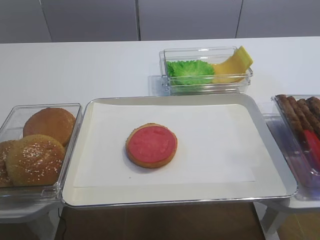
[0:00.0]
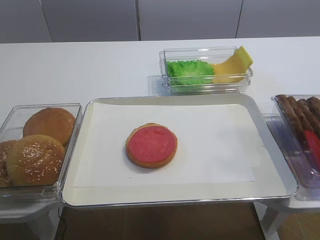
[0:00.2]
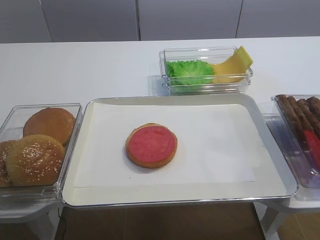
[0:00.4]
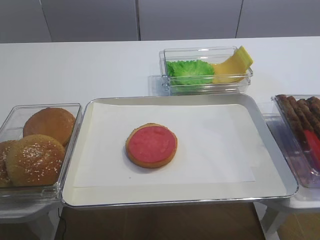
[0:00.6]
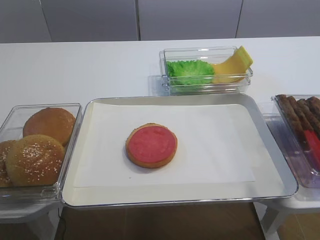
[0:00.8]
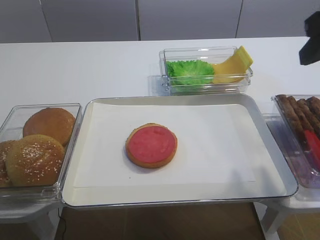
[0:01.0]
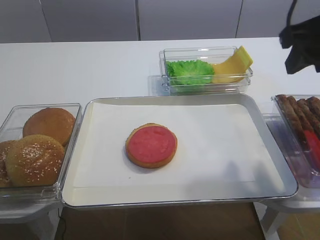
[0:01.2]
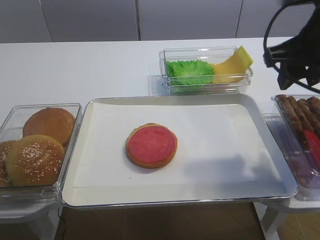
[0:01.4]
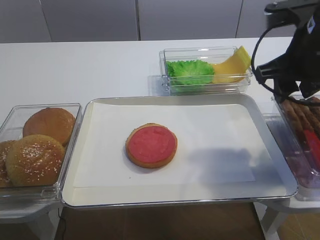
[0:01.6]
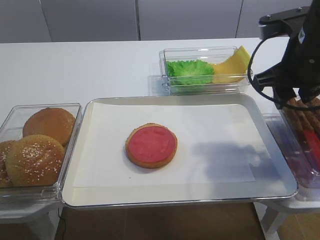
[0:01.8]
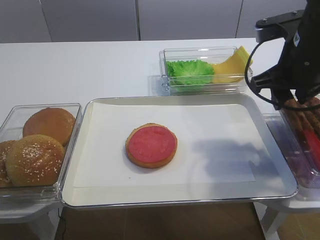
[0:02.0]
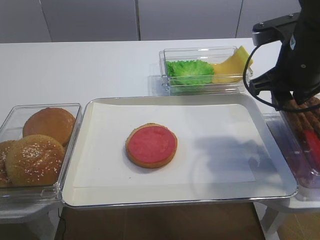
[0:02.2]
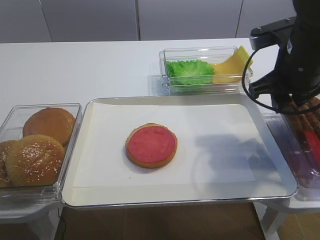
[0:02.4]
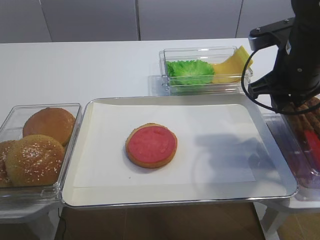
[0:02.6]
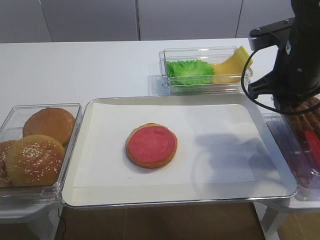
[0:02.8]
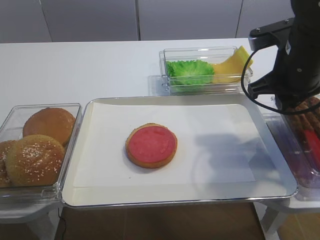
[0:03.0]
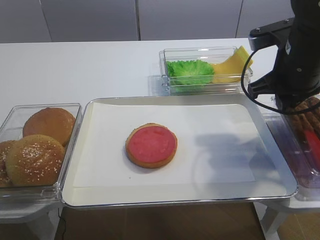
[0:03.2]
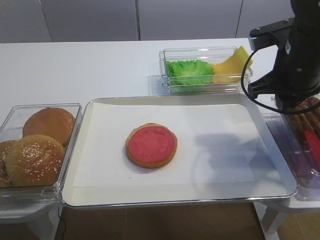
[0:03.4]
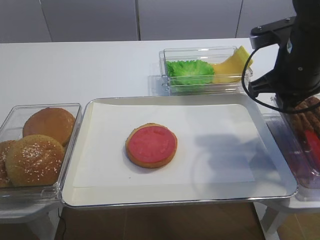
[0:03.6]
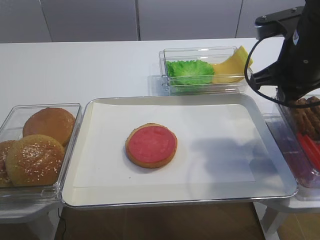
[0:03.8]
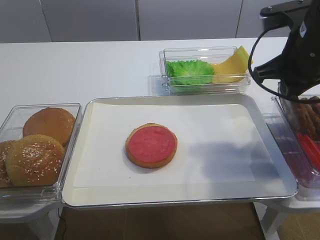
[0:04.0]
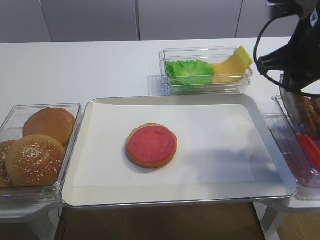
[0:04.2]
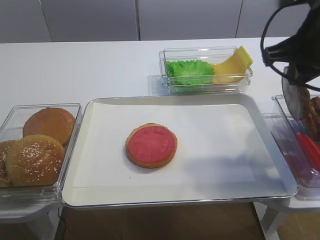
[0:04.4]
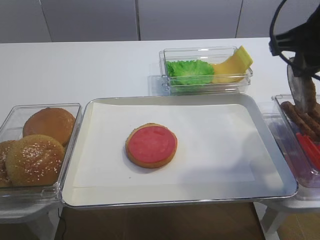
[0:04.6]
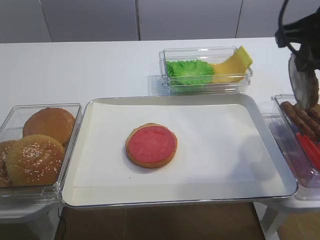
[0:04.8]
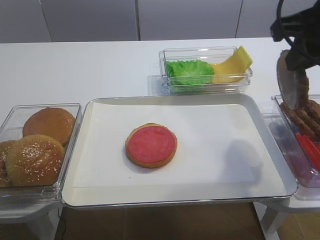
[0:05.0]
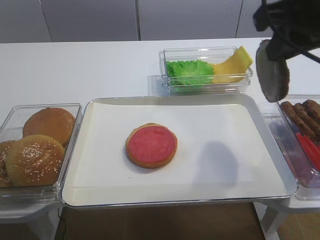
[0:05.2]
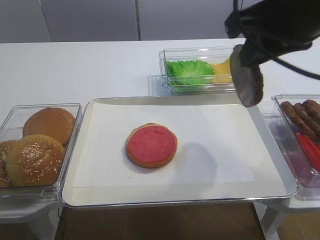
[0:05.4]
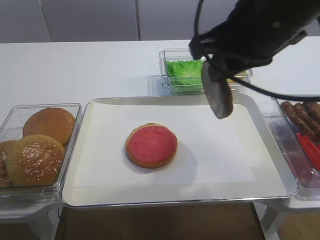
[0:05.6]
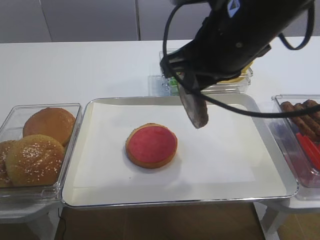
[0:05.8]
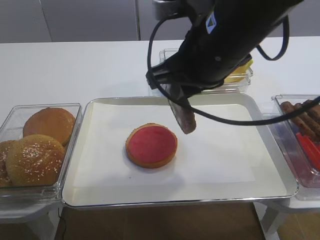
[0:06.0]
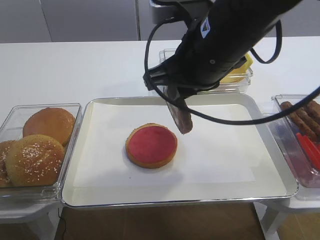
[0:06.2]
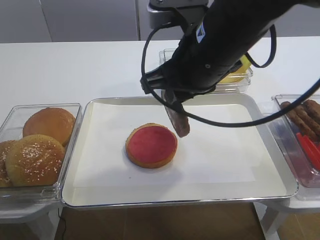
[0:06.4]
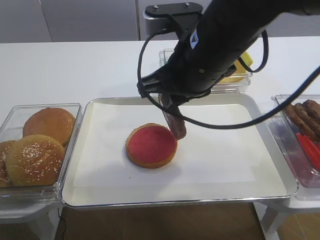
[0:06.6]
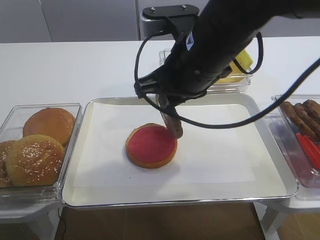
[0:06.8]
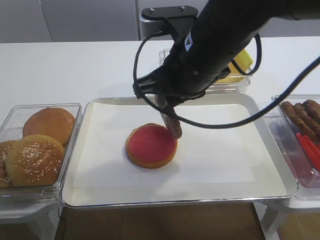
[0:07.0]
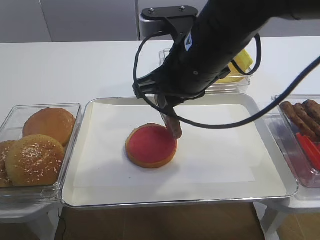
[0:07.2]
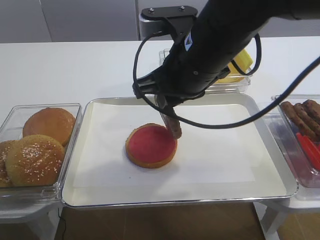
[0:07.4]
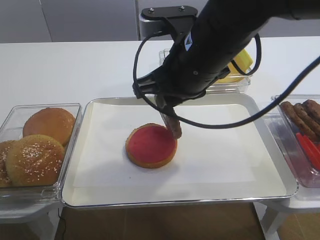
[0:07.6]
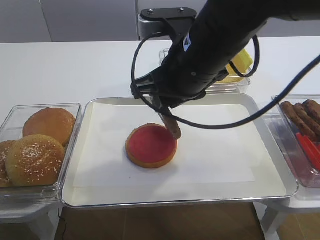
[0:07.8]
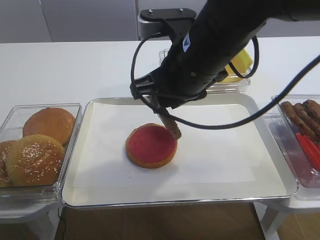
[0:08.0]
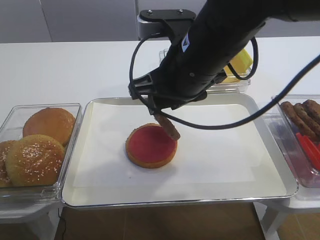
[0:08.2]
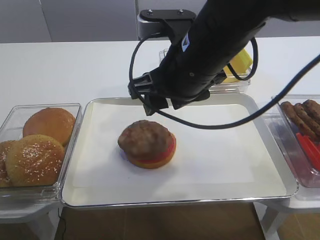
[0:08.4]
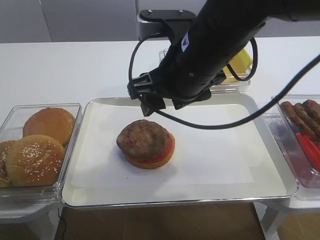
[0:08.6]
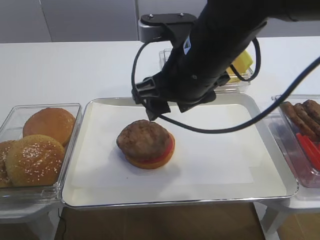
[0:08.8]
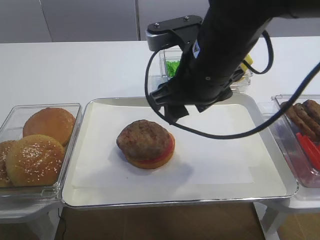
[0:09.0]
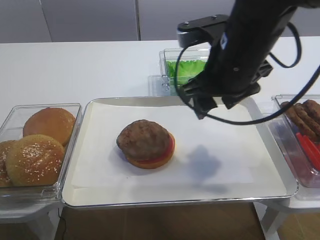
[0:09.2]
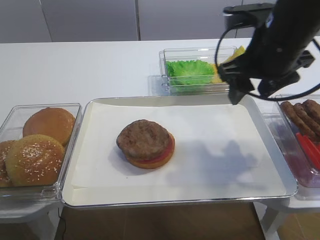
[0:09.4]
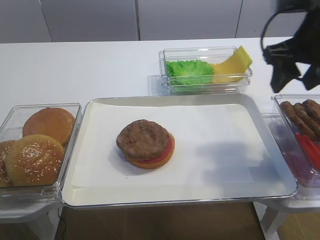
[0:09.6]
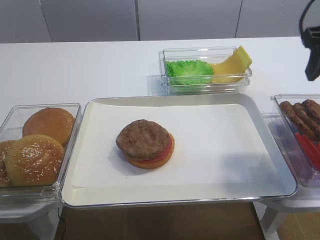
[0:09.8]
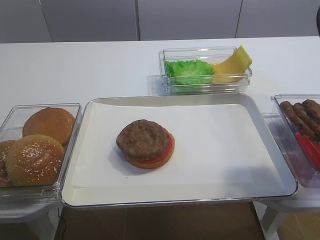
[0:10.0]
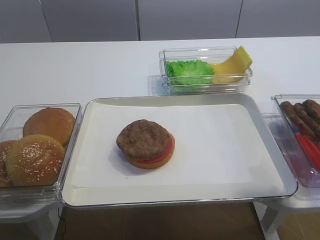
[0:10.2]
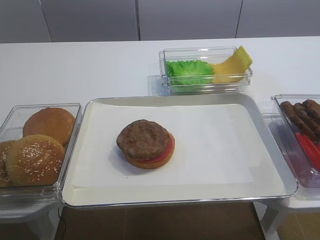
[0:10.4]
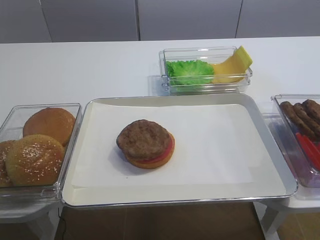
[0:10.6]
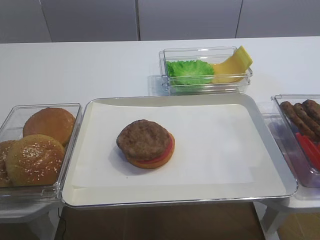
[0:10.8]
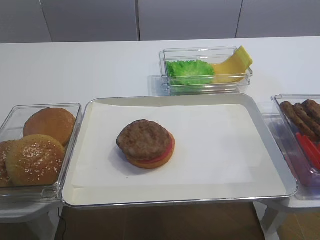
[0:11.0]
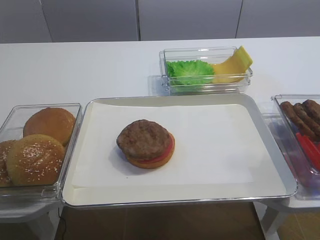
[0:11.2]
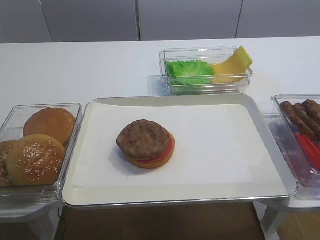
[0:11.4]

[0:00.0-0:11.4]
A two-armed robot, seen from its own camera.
Step, 0:00.0 to 0:05.0: Pick up the cutlet with the right gripper.
Step, 0:05.2 to 0:08.6: Place the cutlet on the tomato slice with the right gripper.
0:00.0 to 0:01.4: The right gripper shifts approximately 25 cm forward.
0:01.4 to 0:02.8: The right gripper is displaced downward by approximately 5 cm, and closes up.
0:02.8 to 0:04.2: The grippers stay close to where they were, moving slightly.
0:04.2 to 0:05.6: The right gripper moves to the left, approximately 10 cm.
0:05.6 to 0:07.2: The right gripper travels to the left and downward by about 10 cm.
0:07.2 to 0:08.6: The right gripper opens.
0:08.6 to 0:10.0: The right gripper heads to the right, covering some 20 cm.
0:10.0 to 0:11.4: The right gripper travels backward by approximately 25 cm.

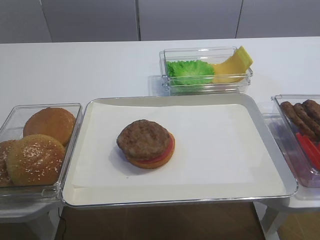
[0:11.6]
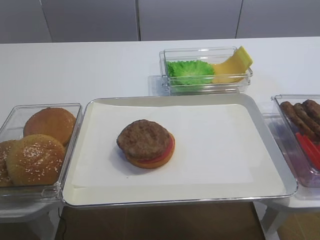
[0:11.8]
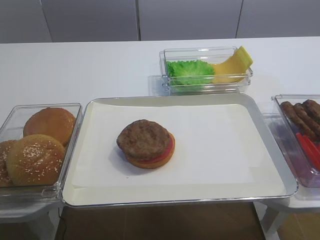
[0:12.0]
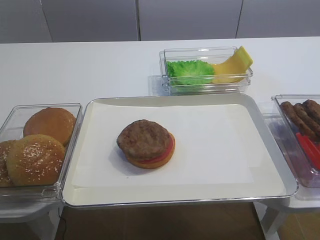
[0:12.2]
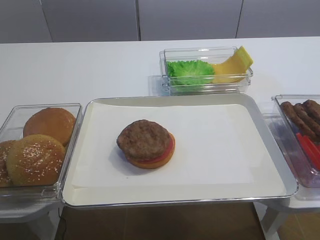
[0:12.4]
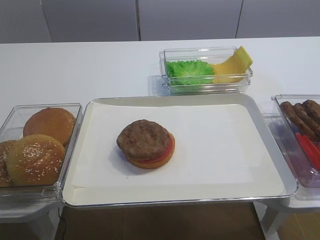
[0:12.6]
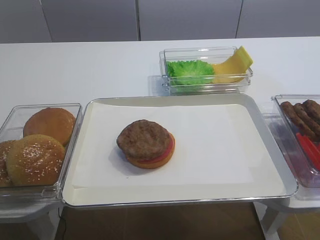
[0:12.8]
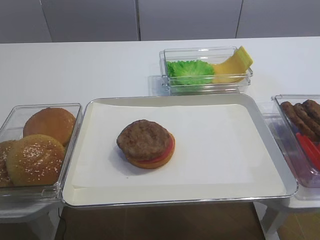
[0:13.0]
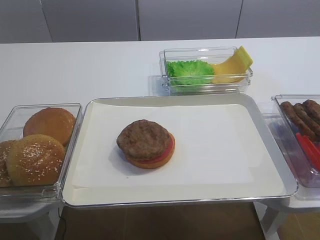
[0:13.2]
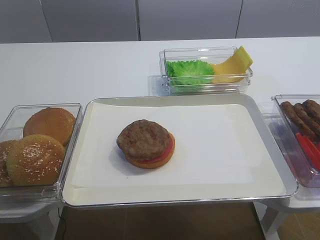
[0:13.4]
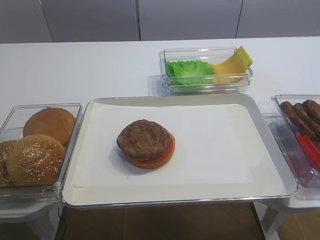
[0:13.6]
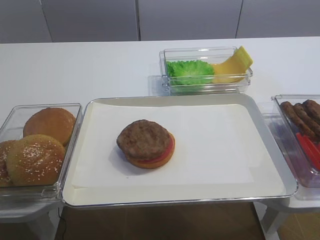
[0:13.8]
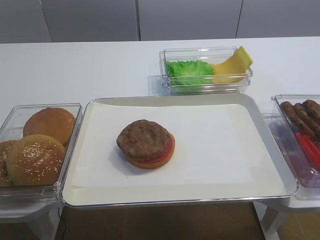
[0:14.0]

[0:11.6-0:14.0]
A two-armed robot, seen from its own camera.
0:12.8 to 0:14.0: Both grippers stay put.

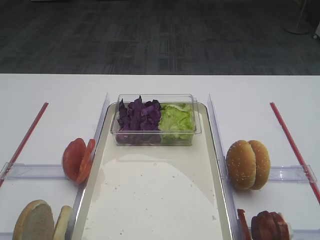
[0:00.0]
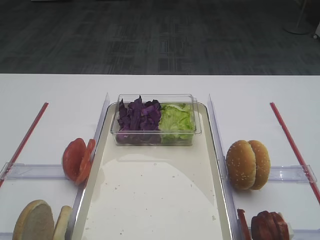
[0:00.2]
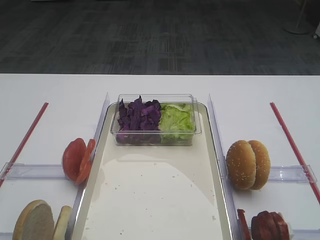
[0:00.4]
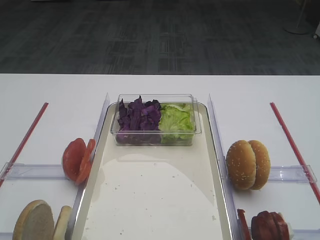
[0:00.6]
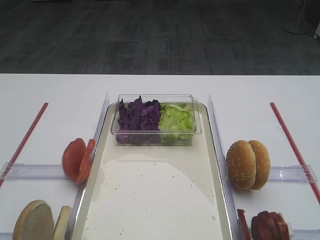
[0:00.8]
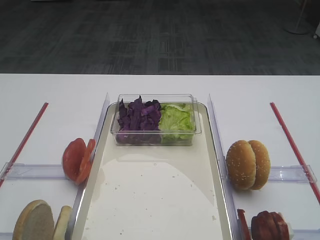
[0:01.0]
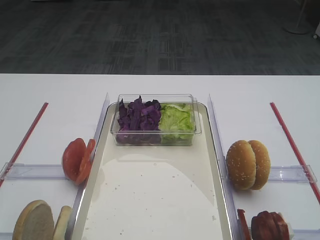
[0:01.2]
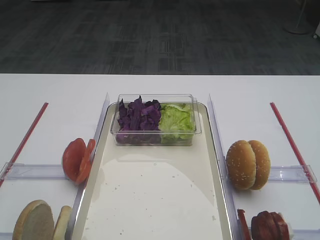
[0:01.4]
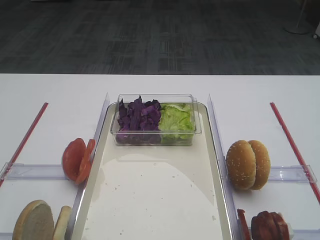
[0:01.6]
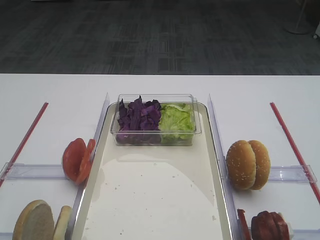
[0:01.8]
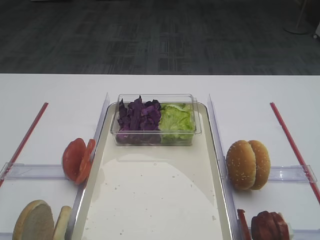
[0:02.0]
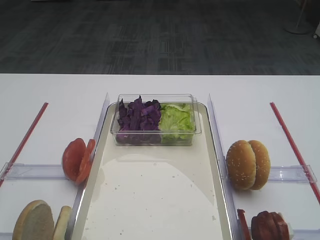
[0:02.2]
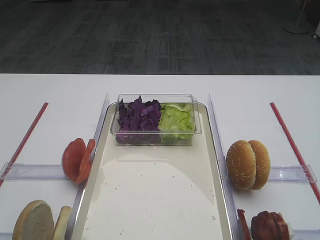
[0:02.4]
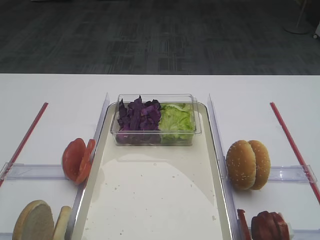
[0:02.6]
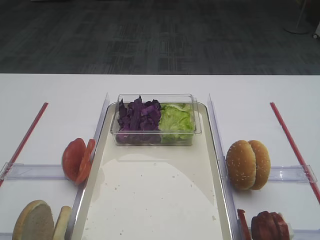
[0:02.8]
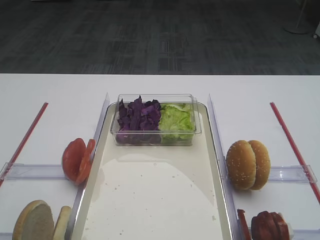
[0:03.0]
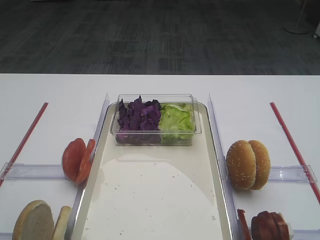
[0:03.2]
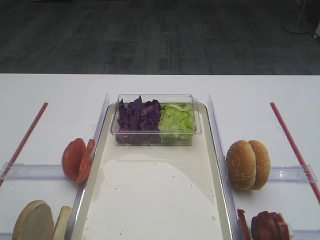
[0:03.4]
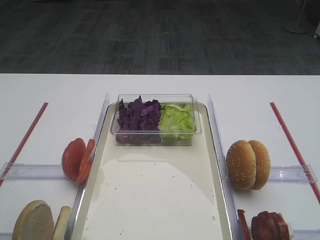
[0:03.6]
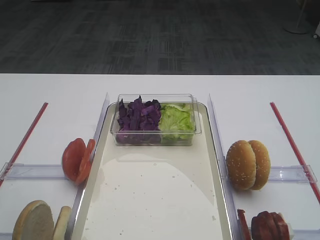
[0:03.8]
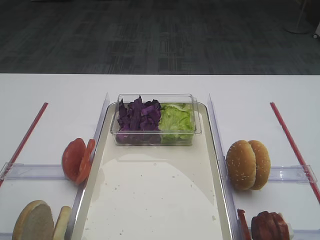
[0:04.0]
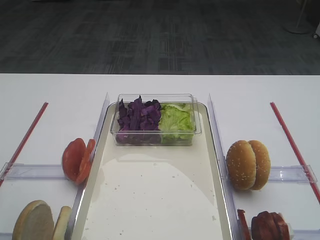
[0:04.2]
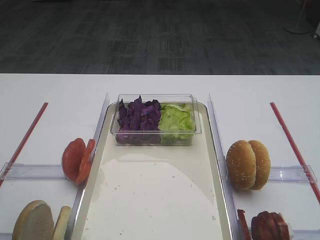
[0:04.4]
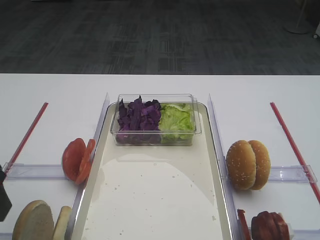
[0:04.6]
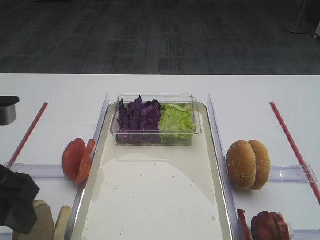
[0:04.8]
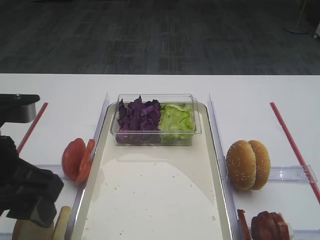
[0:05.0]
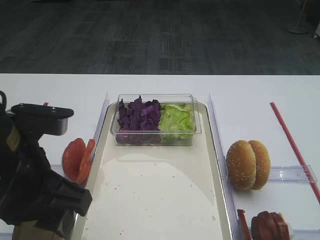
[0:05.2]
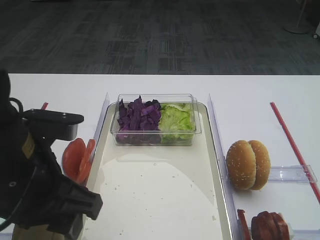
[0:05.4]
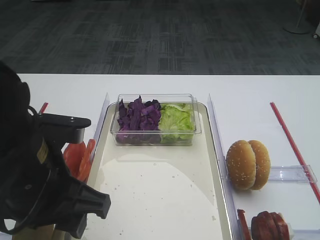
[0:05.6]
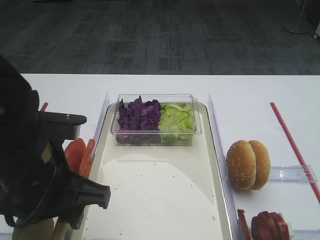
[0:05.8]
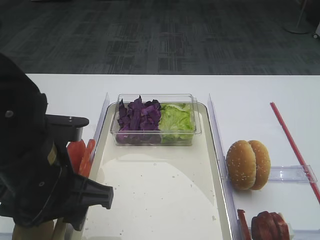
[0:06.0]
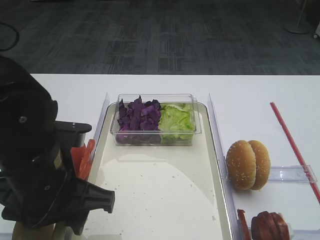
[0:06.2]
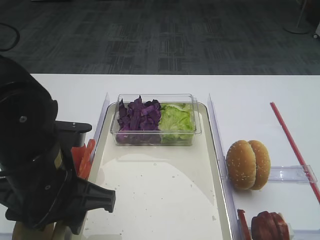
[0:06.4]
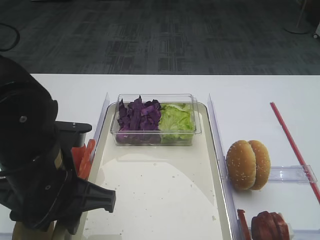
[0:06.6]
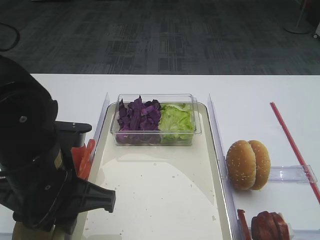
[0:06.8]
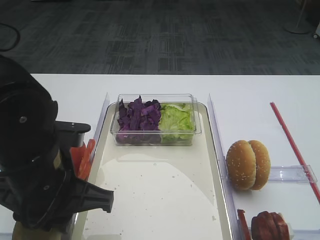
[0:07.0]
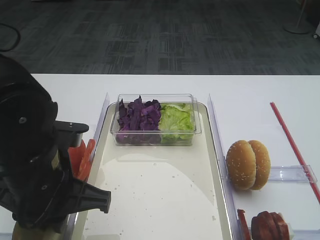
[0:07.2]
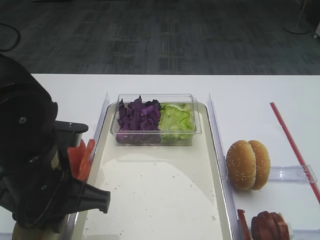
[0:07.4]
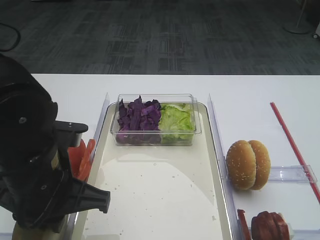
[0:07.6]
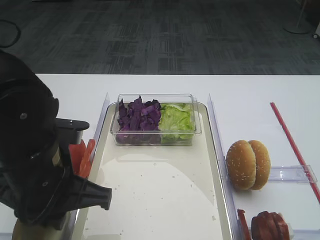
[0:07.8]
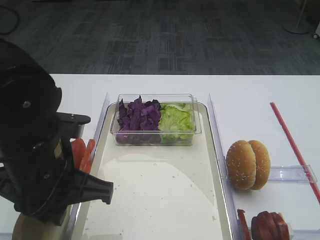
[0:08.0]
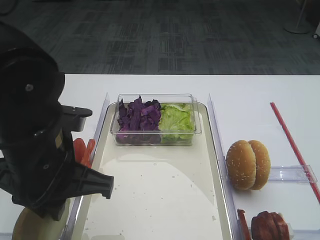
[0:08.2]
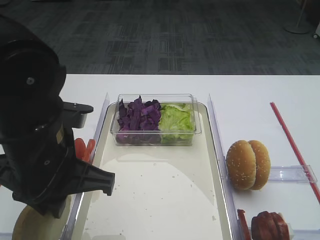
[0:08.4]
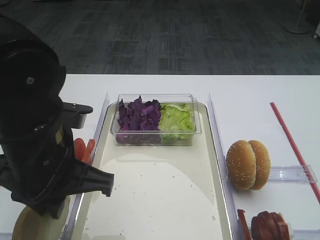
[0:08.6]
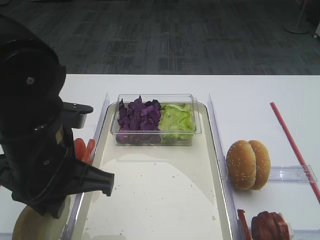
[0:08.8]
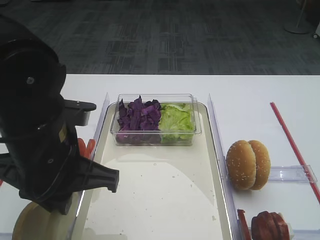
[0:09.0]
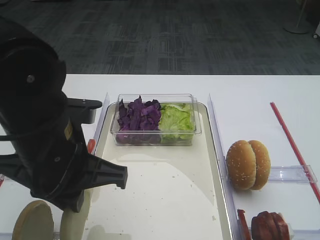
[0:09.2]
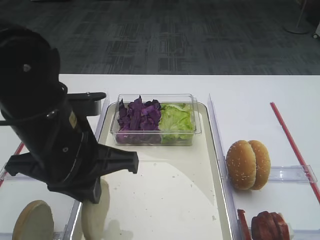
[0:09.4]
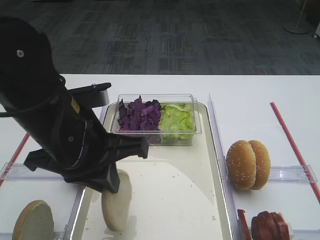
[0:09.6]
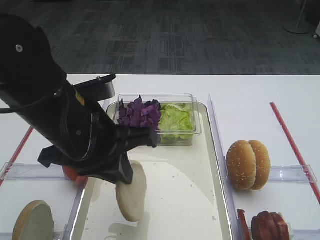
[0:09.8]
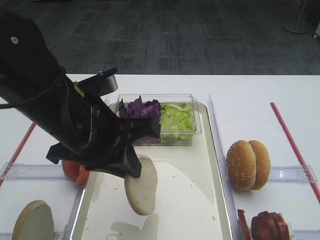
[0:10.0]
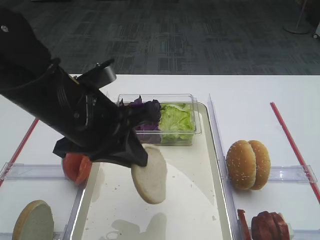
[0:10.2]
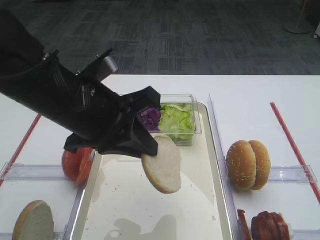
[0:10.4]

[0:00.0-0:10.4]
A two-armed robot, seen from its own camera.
Step, 0:00.0 to 0:09.0: Pick up the bread slice with the left gripper.
0:04.4 to 0:06.0: The left gripper heads to the right and downward, covering approximately 15 cm.
0:06.0 to 0:07.4: The left gripper closes.
0:07.4 to 0:09.0: The grippers stay close to where they were, moving slightly.
